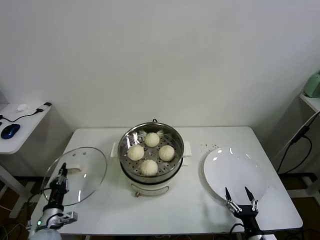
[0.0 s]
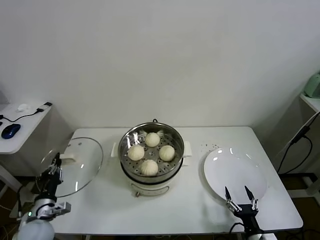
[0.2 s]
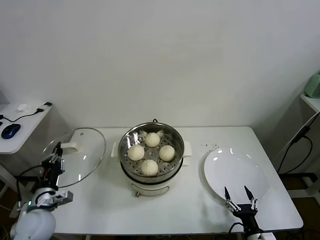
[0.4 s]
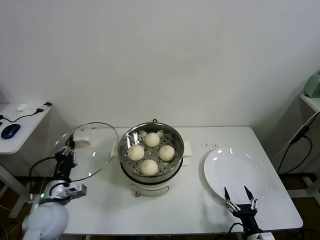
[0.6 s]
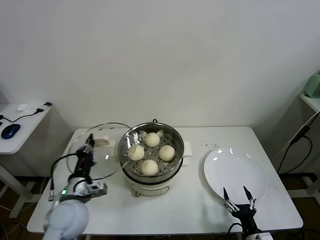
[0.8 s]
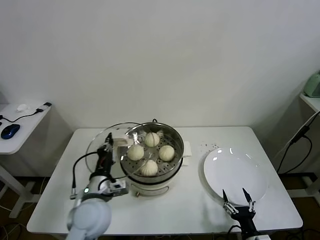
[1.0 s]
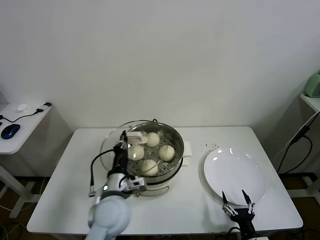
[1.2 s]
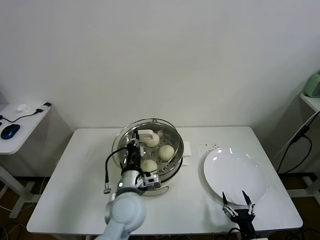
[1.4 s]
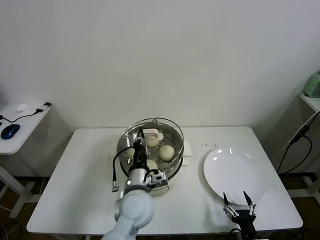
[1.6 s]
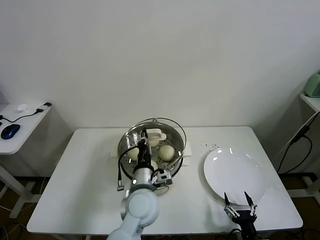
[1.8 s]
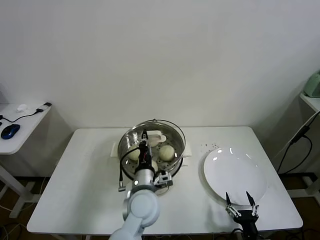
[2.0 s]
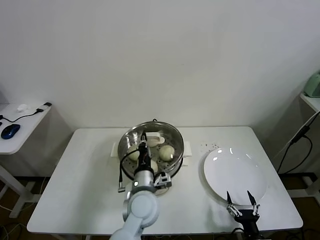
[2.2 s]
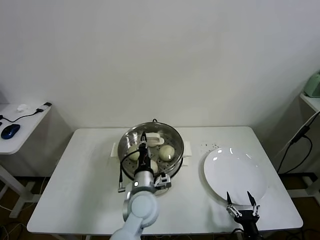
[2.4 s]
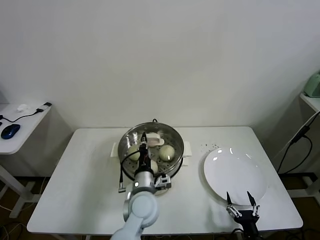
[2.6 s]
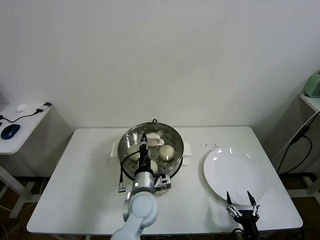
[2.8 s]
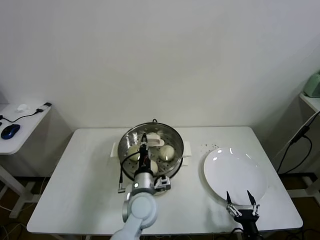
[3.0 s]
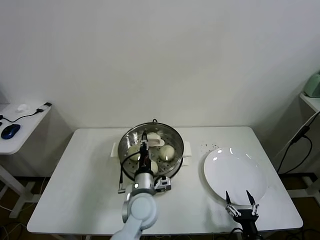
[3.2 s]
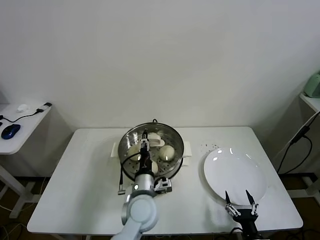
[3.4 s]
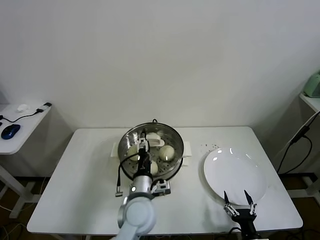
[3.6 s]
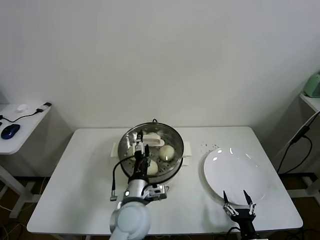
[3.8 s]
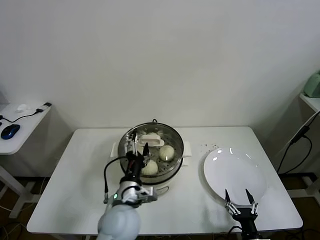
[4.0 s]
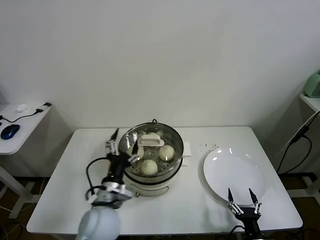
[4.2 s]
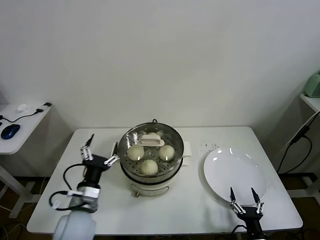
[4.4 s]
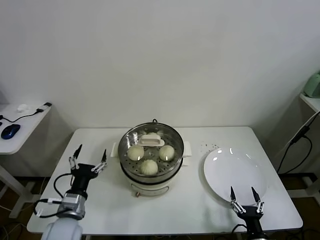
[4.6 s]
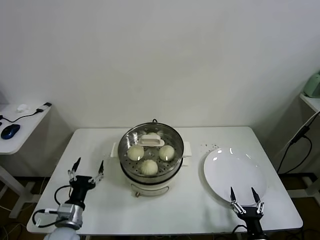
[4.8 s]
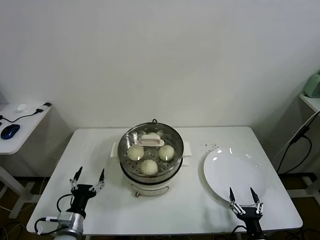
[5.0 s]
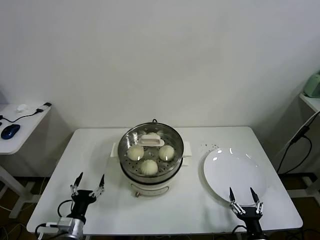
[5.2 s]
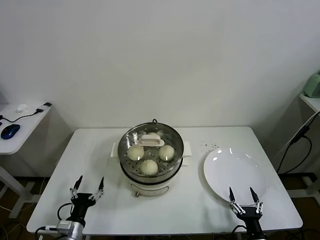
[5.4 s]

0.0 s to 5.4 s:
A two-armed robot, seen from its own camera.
Task of the whole recording: take steamed baozi put them in steamer.
Step, 0.0 to 3.8 s: Place the pot lid on the steamer with left gripper.
0.0 to 1.4 s: The left gripper goes about 35 cm to the right and upward.
1.4 to 2.8 s: The left gripper travels downward by some 5 cm.
2.8 to 4.0 s: The left gripper shifts by some 5 cm, and opens.
4.0 to 5.4 s: The left gripper travels to the left and downward by some 25 cm.

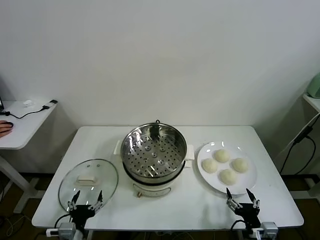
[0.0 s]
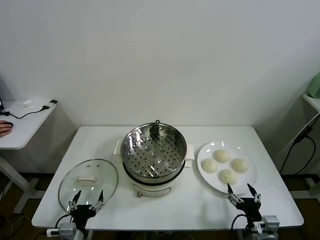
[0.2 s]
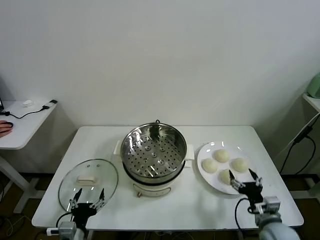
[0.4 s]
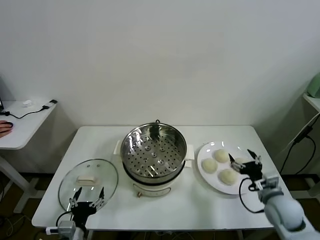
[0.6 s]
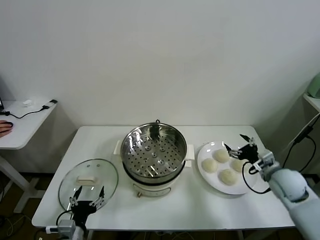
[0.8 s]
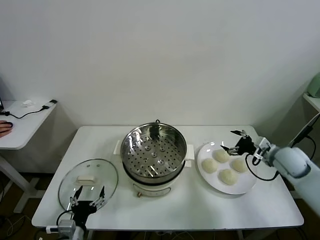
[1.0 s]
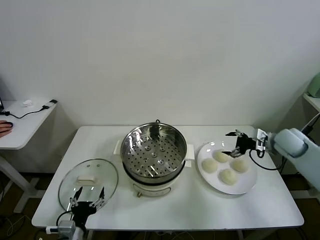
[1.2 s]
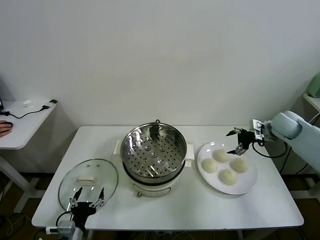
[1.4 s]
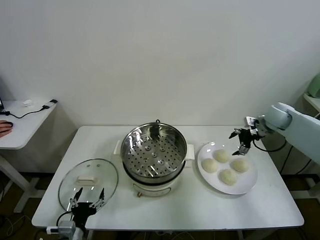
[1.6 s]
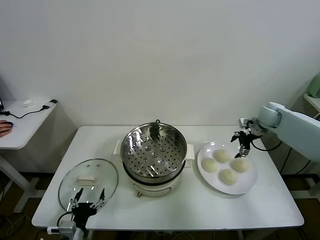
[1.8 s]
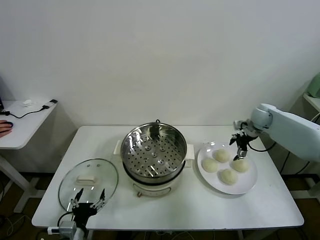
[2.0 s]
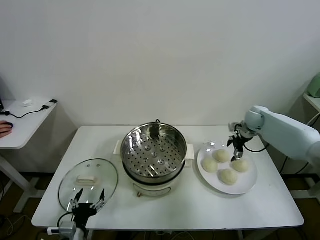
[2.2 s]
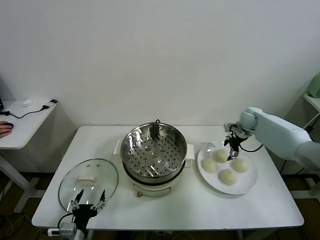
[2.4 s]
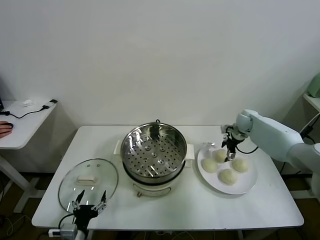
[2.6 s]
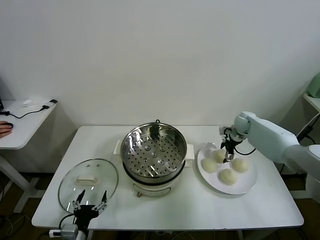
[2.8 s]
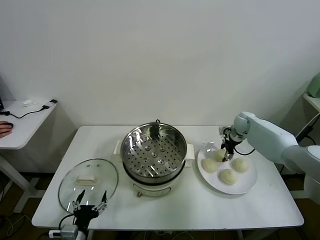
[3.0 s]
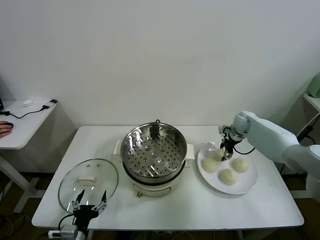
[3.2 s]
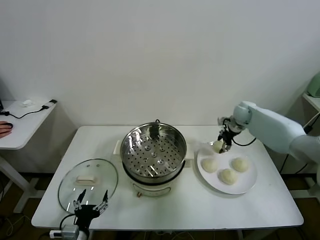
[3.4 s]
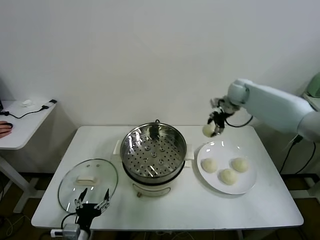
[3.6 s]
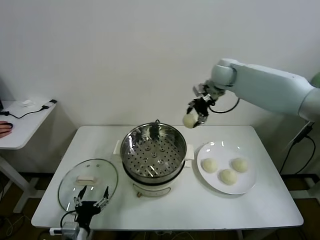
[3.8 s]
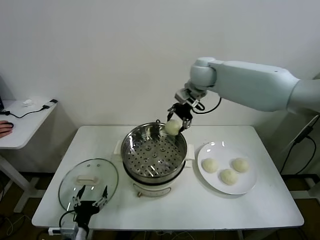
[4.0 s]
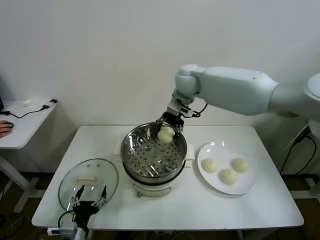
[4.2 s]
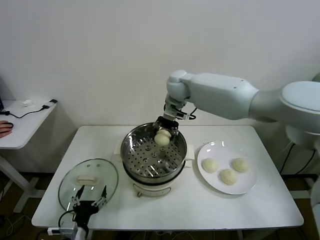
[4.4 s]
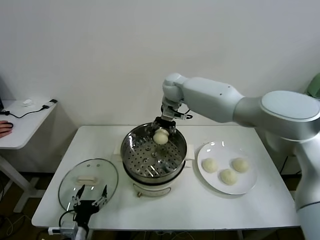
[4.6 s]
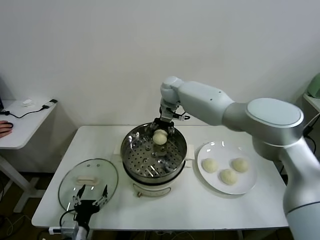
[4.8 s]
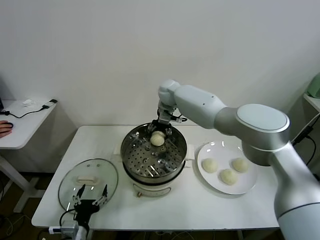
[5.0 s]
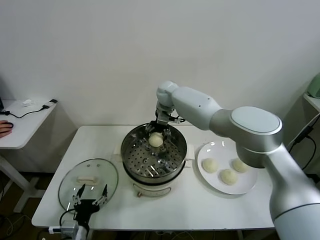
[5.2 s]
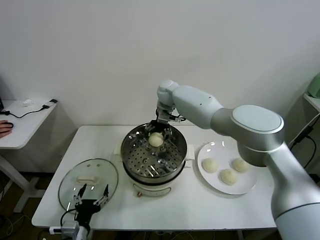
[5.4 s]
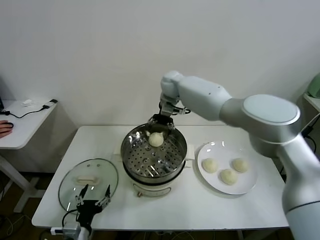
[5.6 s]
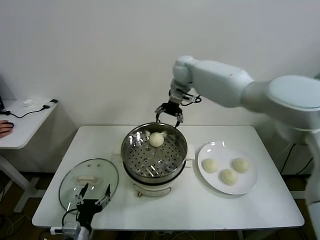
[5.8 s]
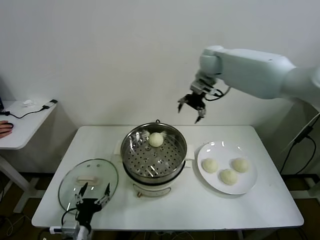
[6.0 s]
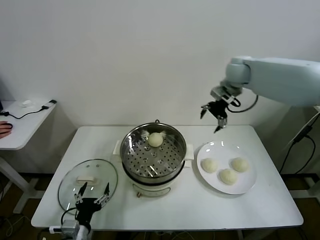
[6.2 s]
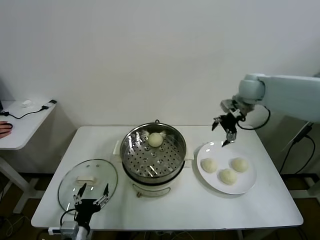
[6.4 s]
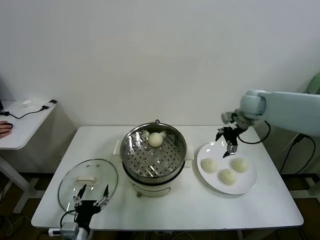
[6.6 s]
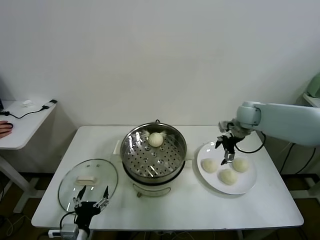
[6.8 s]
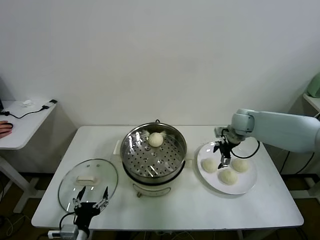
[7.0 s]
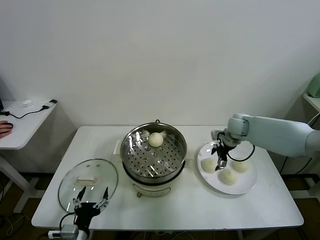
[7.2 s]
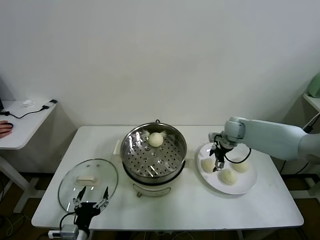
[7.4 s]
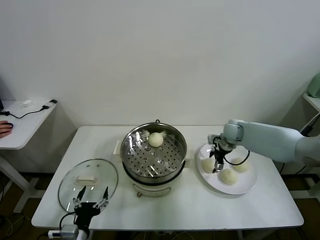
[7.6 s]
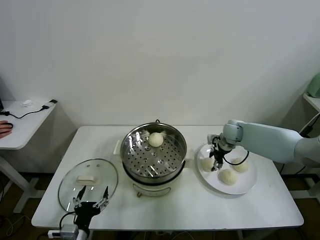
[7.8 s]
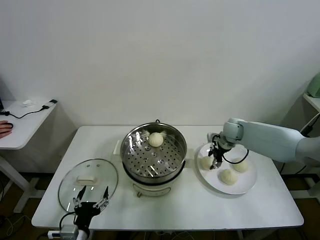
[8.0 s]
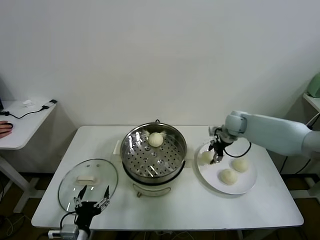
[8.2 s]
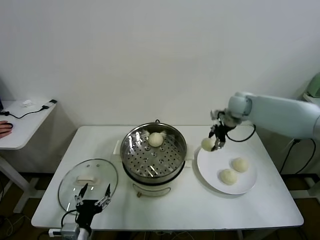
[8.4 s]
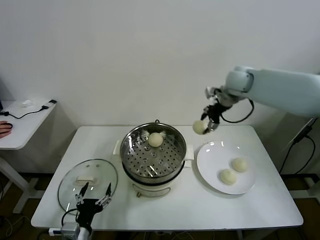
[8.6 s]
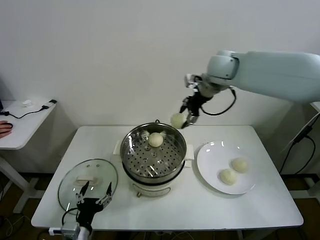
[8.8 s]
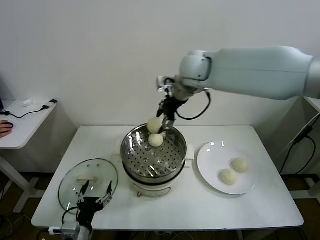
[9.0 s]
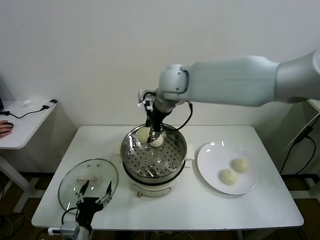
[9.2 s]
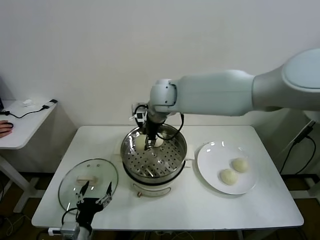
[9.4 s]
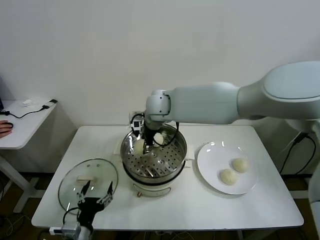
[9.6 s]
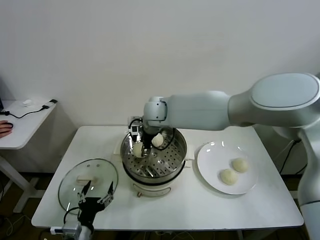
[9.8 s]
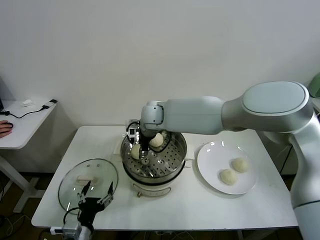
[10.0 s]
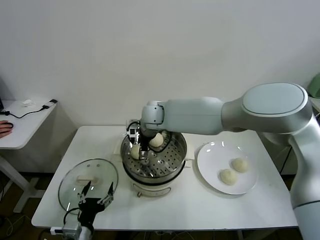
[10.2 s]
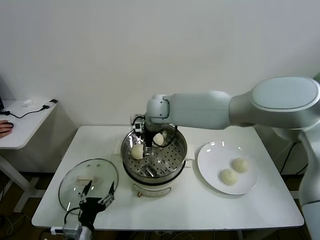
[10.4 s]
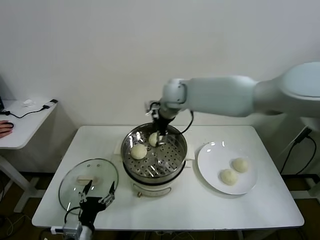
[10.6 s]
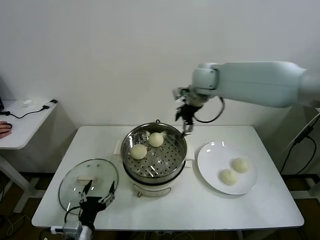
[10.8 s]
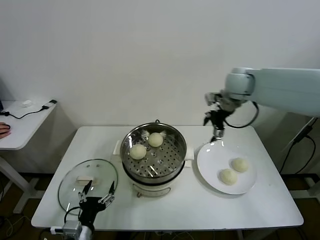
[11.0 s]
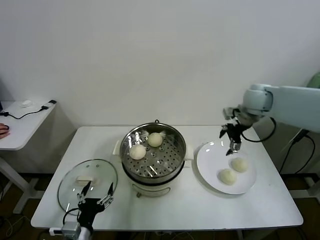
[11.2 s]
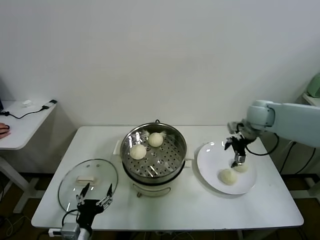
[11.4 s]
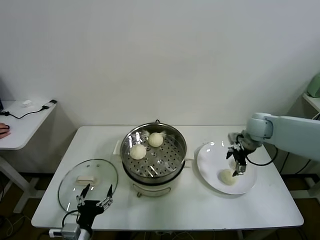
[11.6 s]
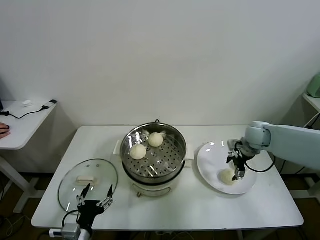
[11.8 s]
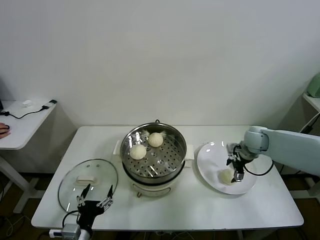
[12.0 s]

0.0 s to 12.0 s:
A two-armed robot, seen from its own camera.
Task of the whole recording: take steamed baozi put them in steamer.
Step, 0.0 to 3.0 s: Grasp the baozi in the plate with right gripper.
Step, 3.2 to 5.2 s: Place the baozi on the steamer with right gripper.
Step, 5.4 to 7.8 s: Grasp the baozi in the plate with right gripper.
Step, 8.0 to 10.2 s: Place the baozi on the steamer with right gripper.
1.6 to 3.0 s: The right gripper is displaced downward, forward and to the left by roughly 10 cm, and closes.
3.0 to 4.4 s: The right gripper shifts approximately 35 cm to the left and upward.
4.4 to 6.0 s: The right gripper travels to the right and upward by about 20 cm, and opens its fingers.
6.0 to 7.6 s: The right gripper is displaced downward by some 25 cm.
7.6 to 9.0 s: The right gripper is displaced upward and to the left by roughly 35 cm.
9.0 to 10.4 s: The right gripper is displaced downward and to the left by some 15 cm, and opens its fingers.
10.4 to 12.0 s: The right gripper shifts approximately 35 cm to the right.

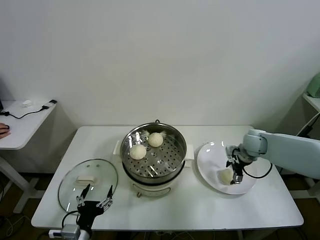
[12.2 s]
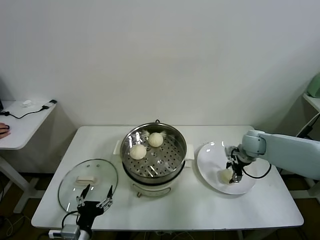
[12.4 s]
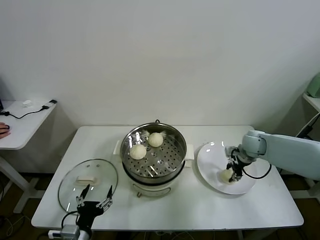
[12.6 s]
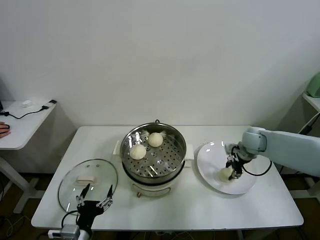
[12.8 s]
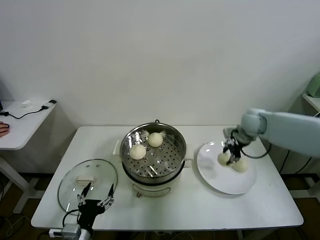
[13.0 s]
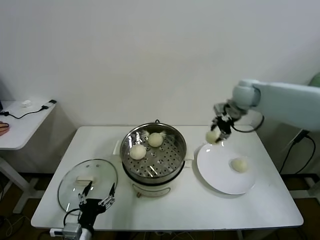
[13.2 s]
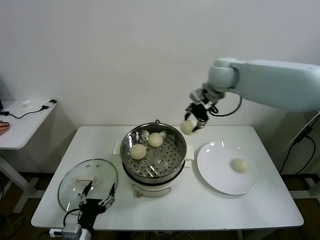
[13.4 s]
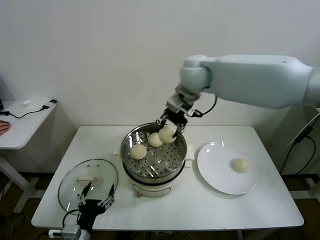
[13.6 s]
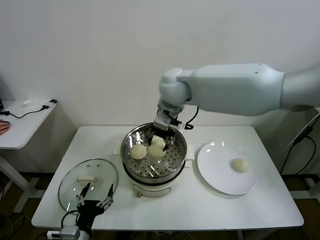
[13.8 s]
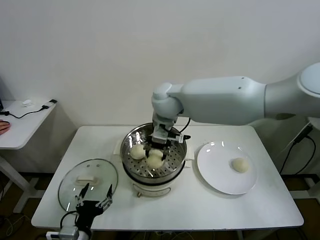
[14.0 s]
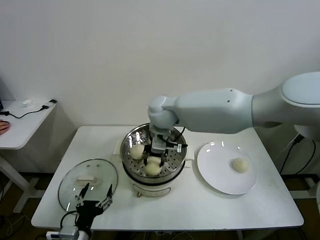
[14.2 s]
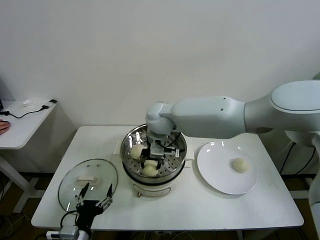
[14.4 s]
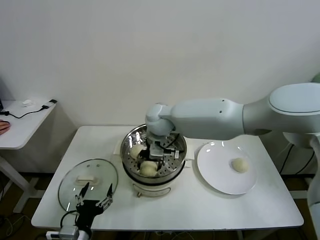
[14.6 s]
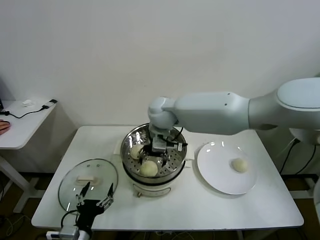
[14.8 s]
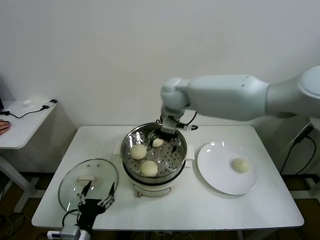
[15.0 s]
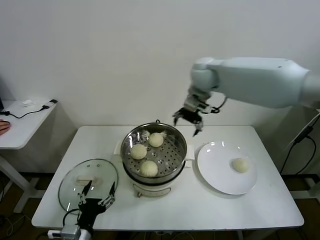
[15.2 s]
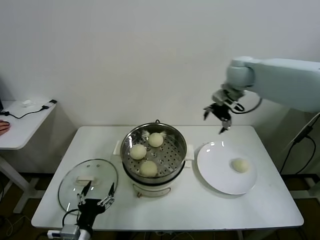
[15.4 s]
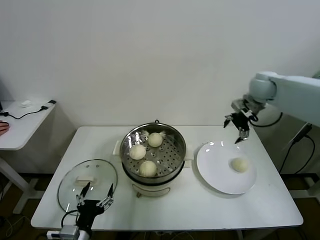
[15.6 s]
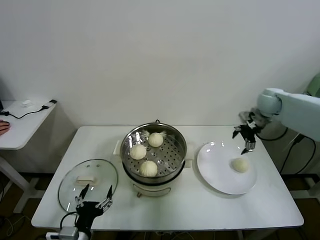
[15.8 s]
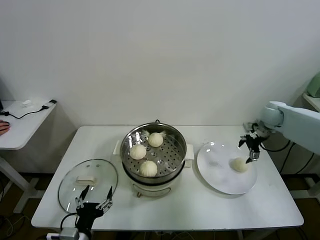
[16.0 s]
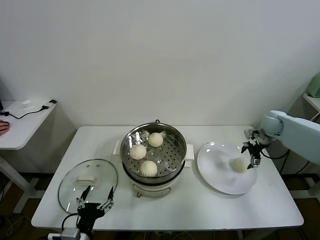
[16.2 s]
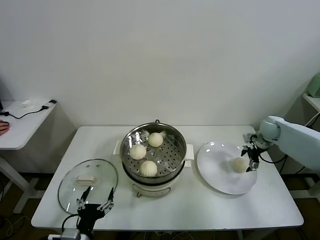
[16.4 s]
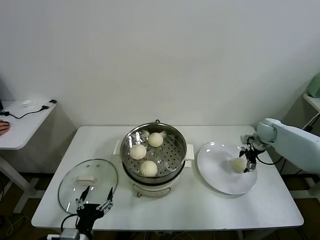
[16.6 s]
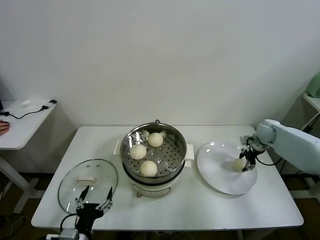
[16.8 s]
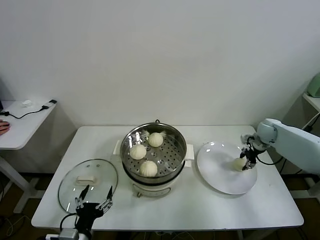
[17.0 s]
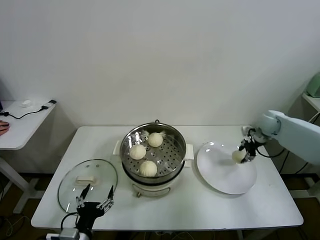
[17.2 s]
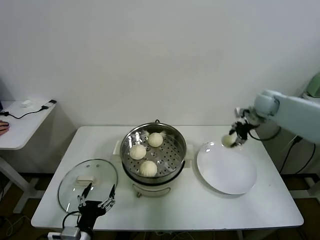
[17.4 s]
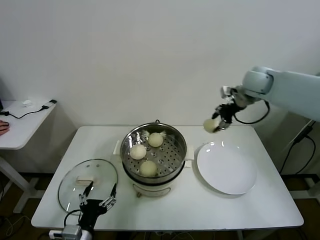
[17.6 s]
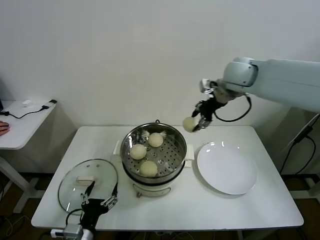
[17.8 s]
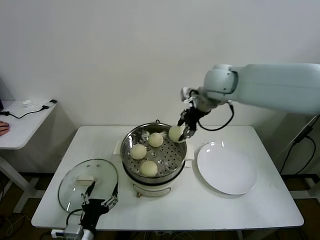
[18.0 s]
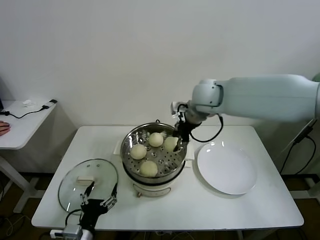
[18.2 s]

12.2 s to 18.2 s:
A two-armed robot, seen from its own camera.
Task of the whole recording: take steamed baozi put them in steamer.
Step, 12.8 to 14.8 s: Place the baozi on the steamer with right gripper.
Step, 15.0 to 16.8 s: Grasp the baozi in the plate with right gripper.
12.2 to 13.8 s: The right gripper is displaced to the left and upward by about 40 cm, and closes its fingers.
13.8 to 15.2 s: The right gripper heads to the right and forward, covering some 15 cm, and opens up.
15.2 to 16.6 s: The right gripper travels to the right and downward by some 40 cm.
16.6 to 18.2 s: The right gripper moves to the left and upward, roughly 35 cm, and closes.
